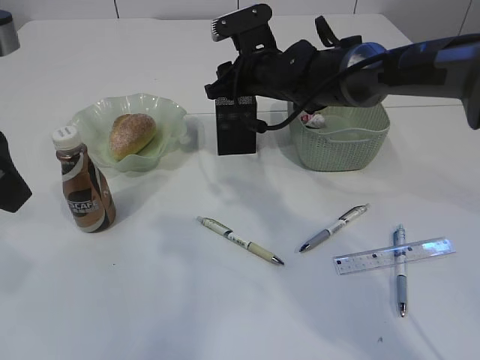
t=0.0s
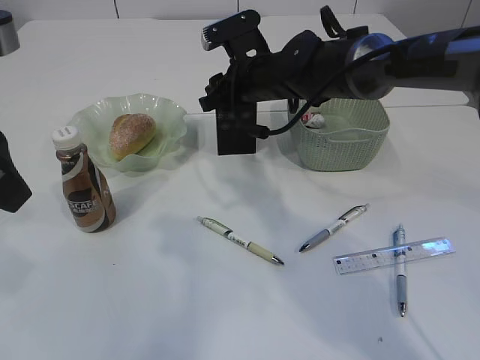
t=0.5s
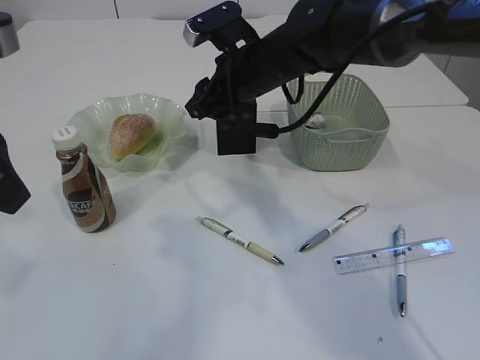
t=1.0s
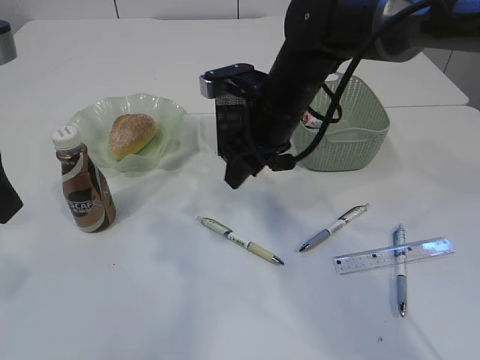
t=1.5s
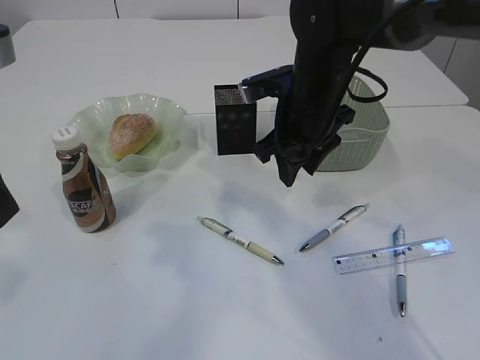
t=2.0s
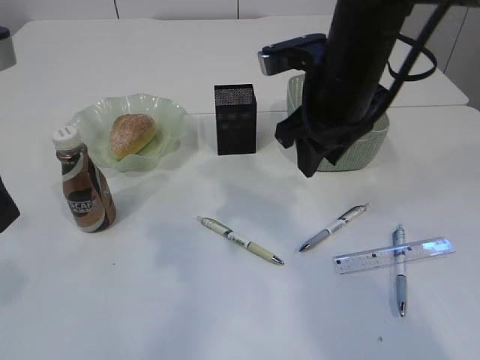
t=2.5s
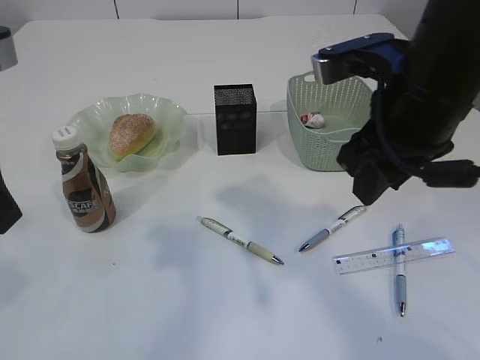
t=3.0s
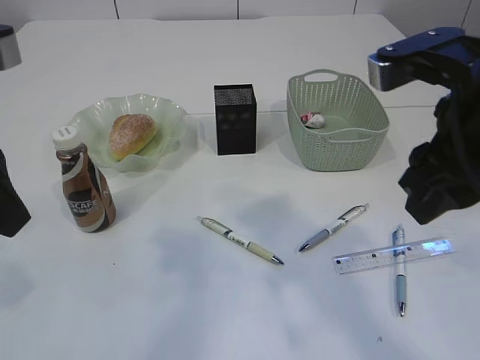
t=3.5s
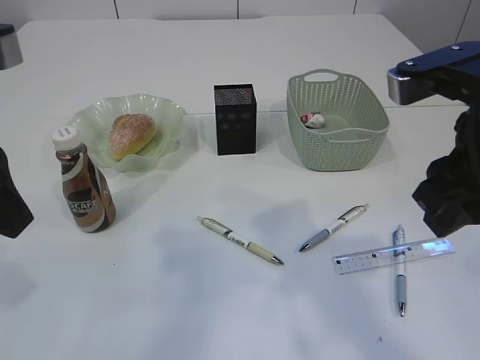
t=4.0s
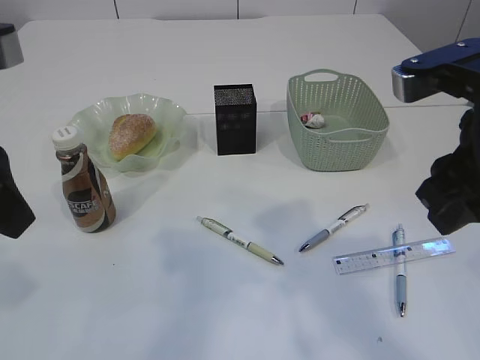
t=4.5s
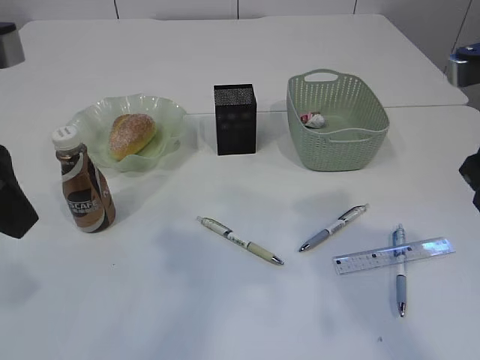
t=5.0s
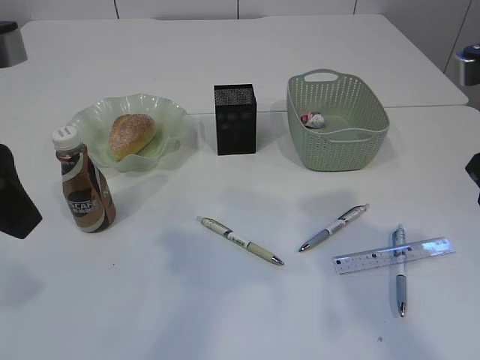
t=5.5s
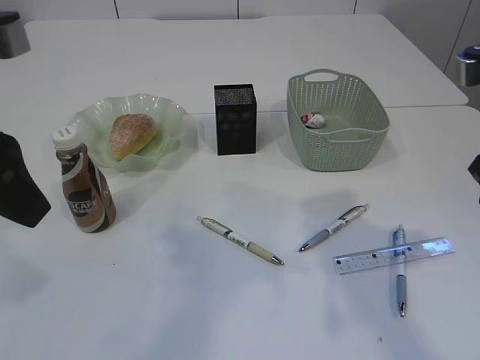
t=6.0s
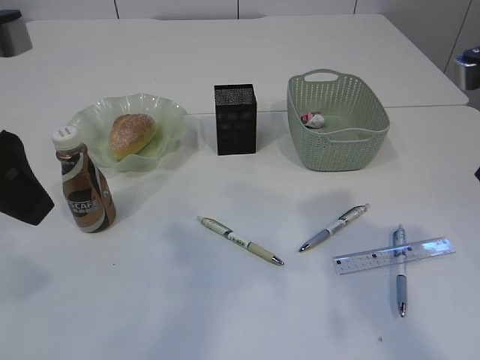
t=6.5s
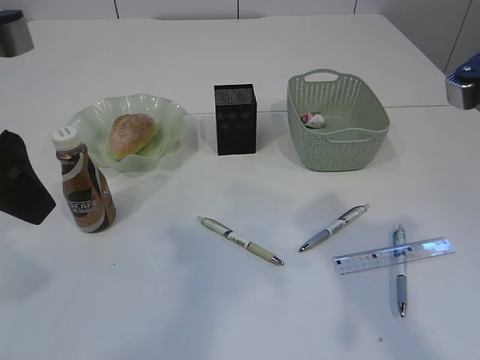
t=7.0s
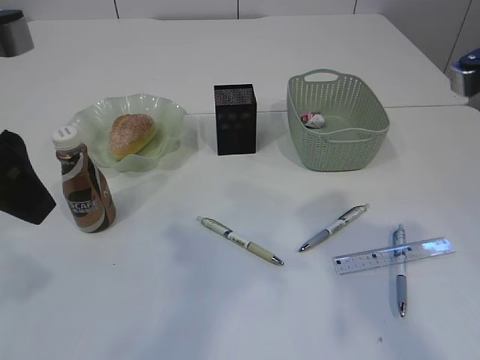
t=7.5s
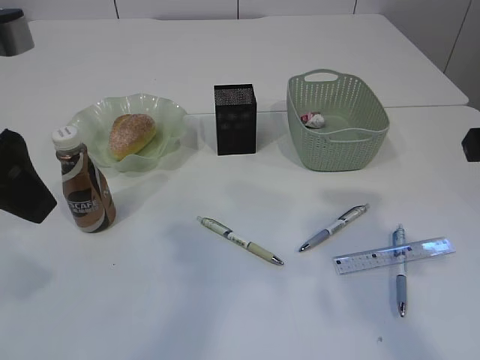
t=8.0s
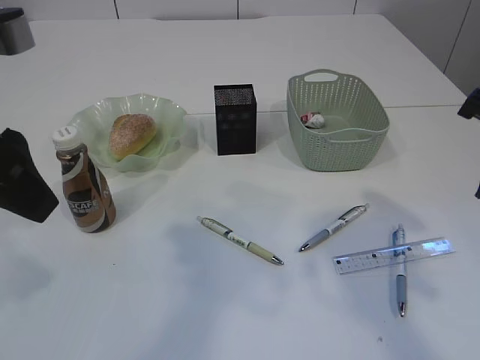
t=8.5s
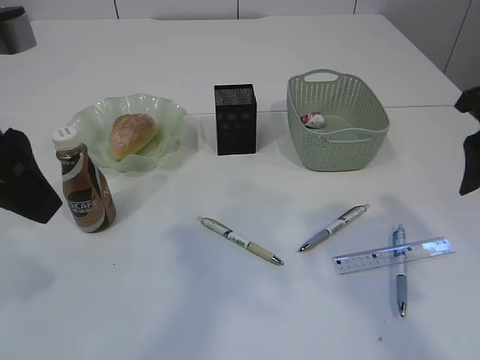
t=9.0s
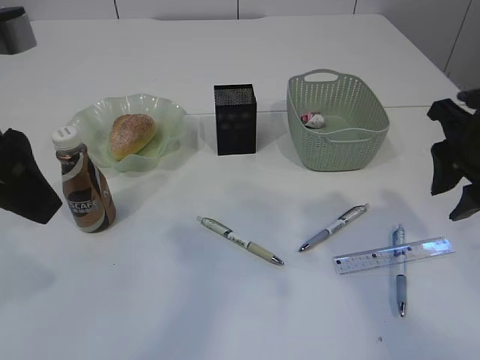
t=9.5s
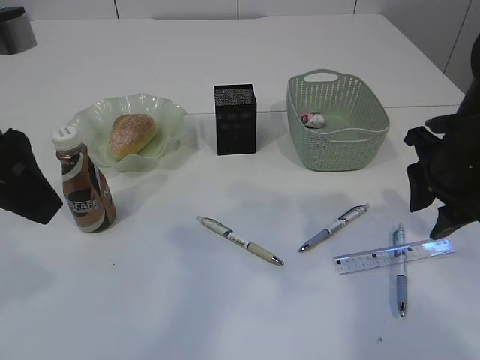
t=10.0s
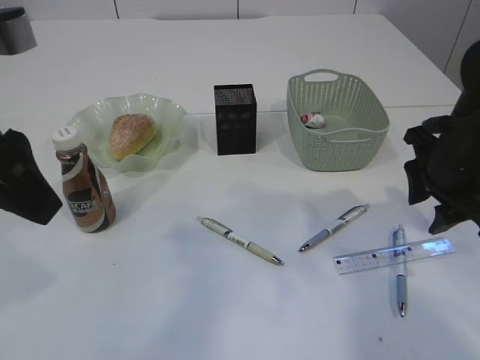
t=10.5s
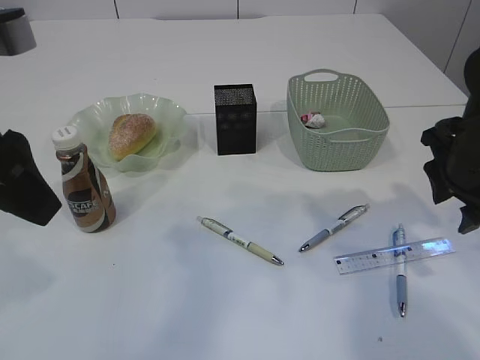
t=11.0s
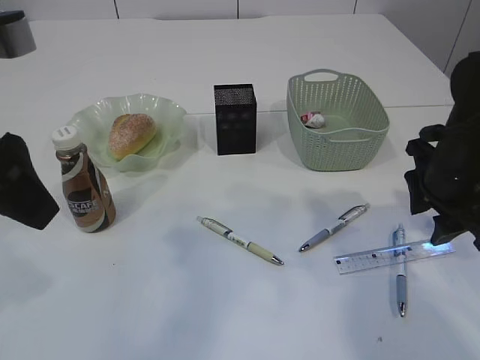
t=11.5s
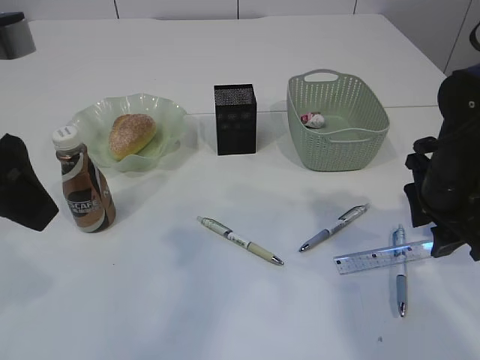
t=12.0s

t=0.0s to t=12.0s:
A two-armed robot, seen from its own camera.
t=0.0s to t=2.0s: The right gripper goes some 10 cm backward.
t=2.0s to t=4.0s: The right gripper shifts roughly 20 cm backward, upward and to the right.
t=4.0s to t=6.0s: The right gripper goes roughly 5 cm to the right.
t=8.0s to t=10.0s: The right gripper moves downward and forward, roughly 10 cm.
t=10.0s to t=12.0s: The right gripper moves downward, approximately 5 cm.

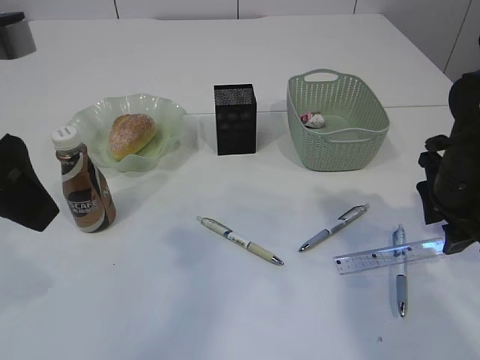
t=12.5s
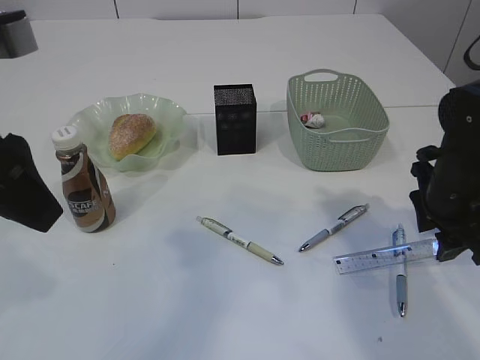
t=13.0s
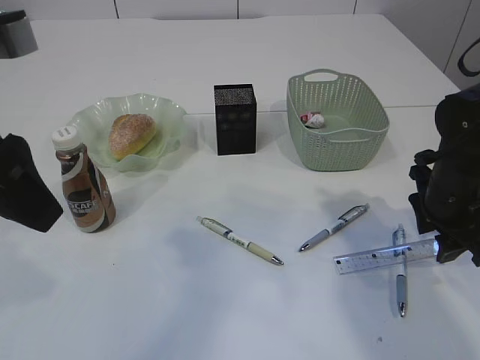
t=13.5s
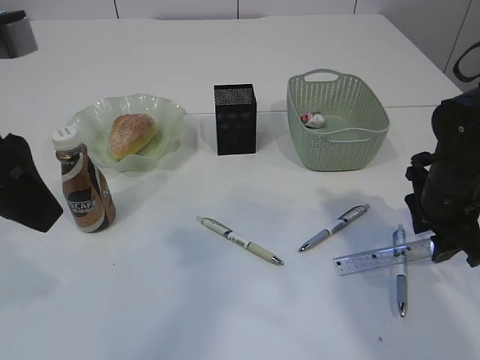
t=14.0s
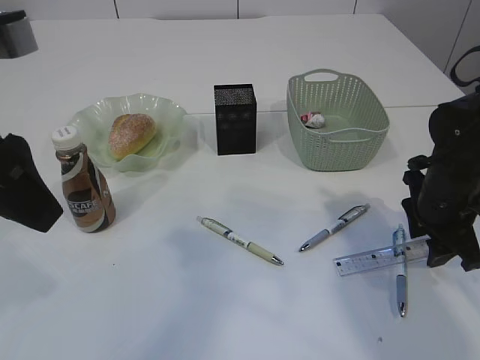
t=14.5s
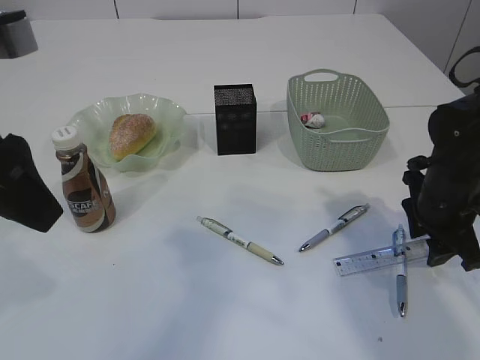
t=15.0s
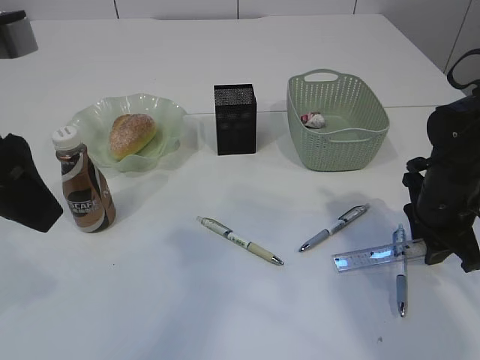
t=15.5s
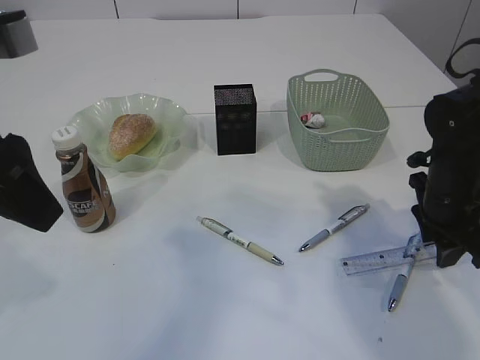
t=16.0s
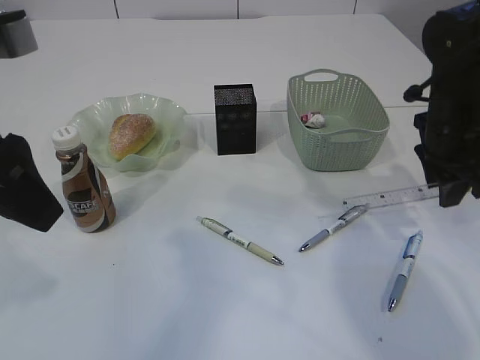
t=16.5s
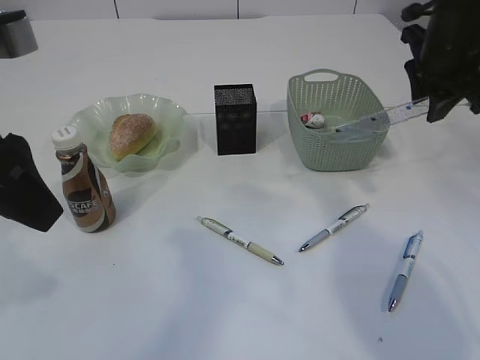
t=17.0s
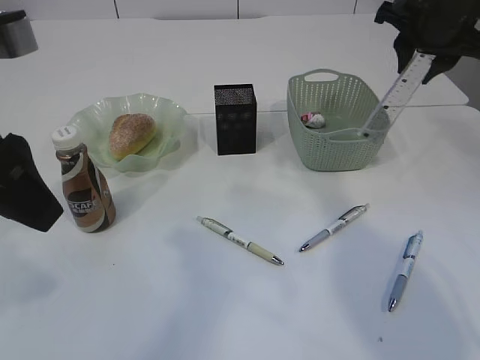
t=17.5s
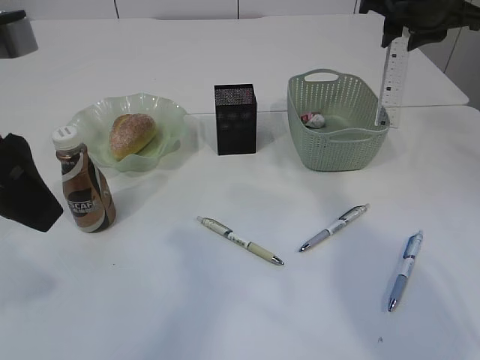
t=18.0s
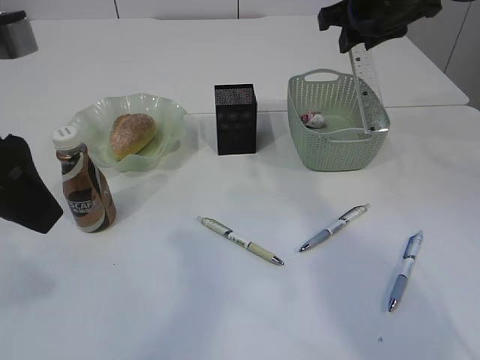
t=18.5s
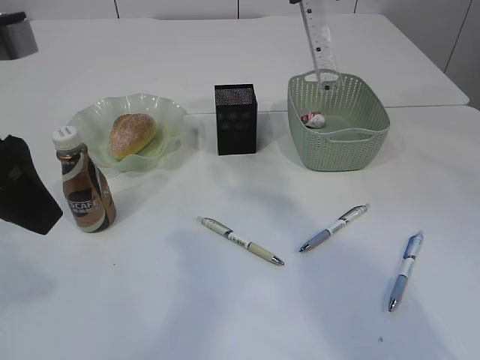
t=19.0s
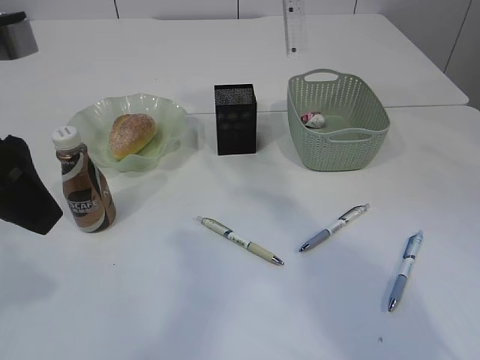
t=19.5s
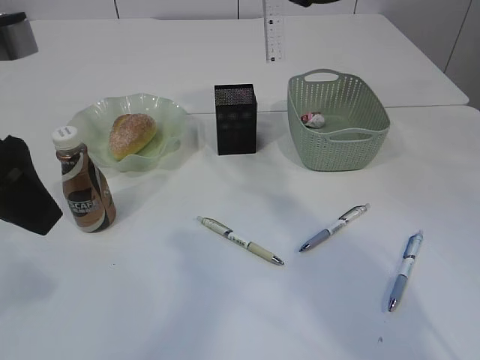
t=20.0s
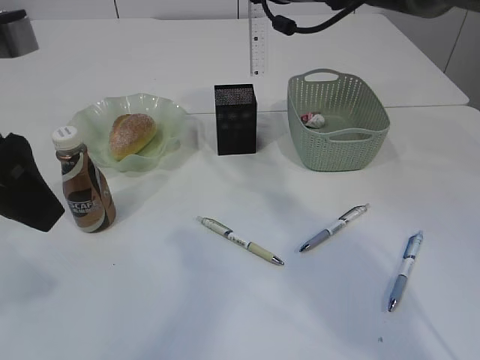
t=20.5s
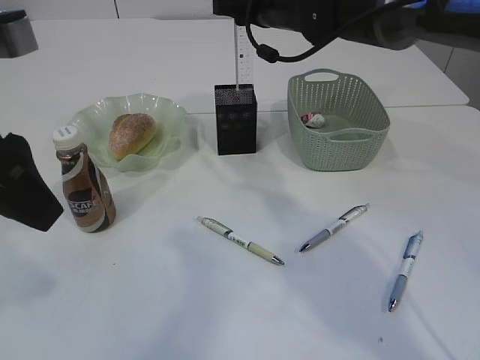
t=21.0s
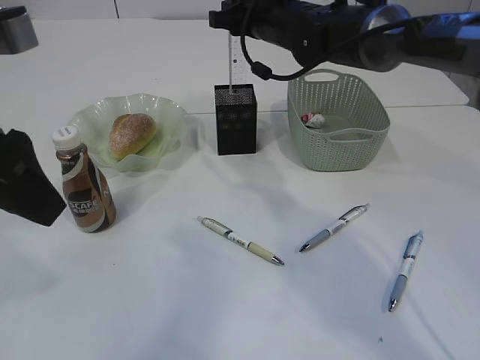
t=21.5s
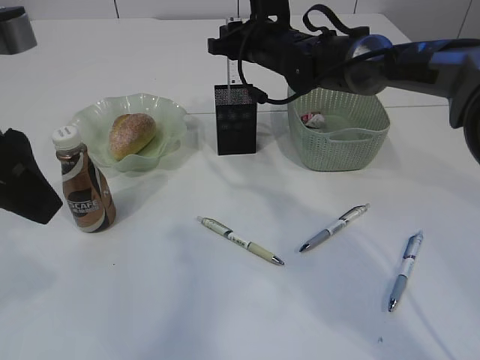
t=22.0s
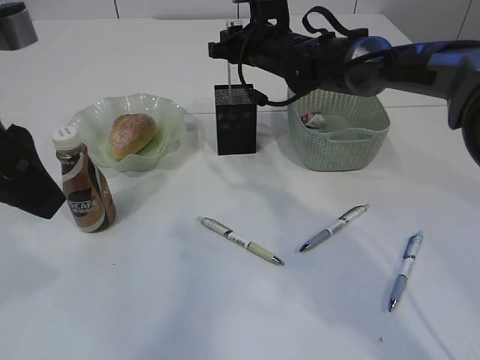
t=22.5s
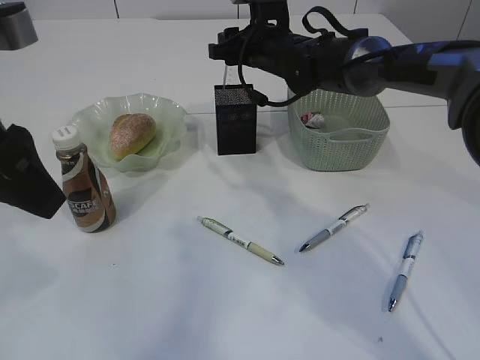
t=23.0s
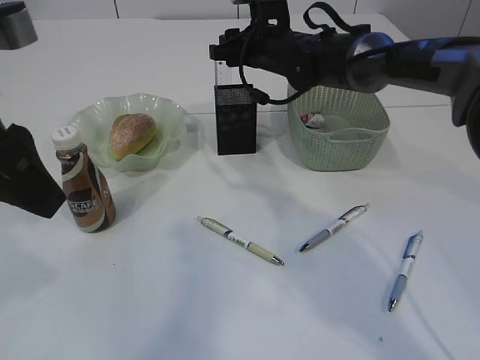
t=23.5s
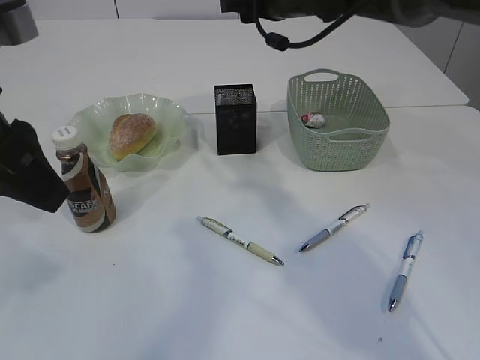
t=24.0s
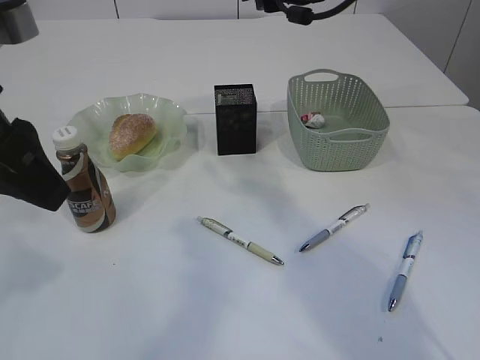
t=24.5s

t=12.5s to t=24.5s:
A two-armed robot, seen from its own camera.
Step, t=12.5s to t=16.5s: pick up the ruler.
Step, t=17.0s to t=23.5s: Place the ruler into the pen holder.
t=12.5s to t=14.5s: There are only small adjustments of the grippers.
t=14.5s to t=16.5s: The right gripper travels upward by roughly 5 cm.
t=16.5s to t=18.5s: The right gripper travels upward, forward and to the left by about 15 cm.
t=18.5s to t=20.5s: The right gripper goes some 10 cm to the left and forward.
t=20.5s to t=22.5s: The right gripper heads downward, covering some 10 cm.
t=22.5s to t=24.5s: The right gripper moves upward and backward, approximately 15 cm.

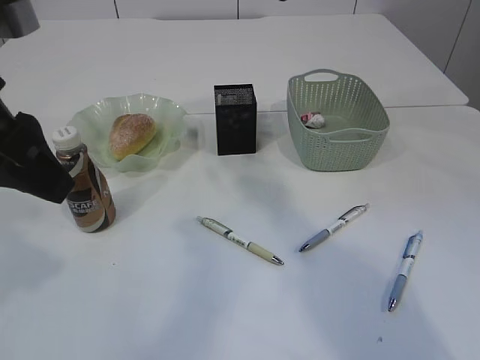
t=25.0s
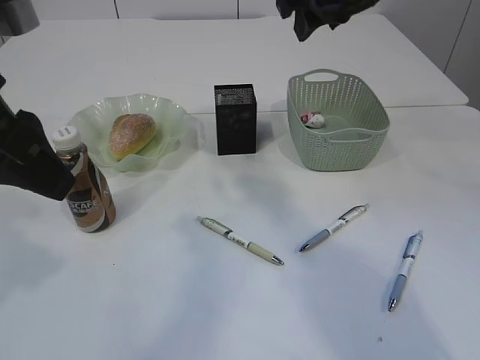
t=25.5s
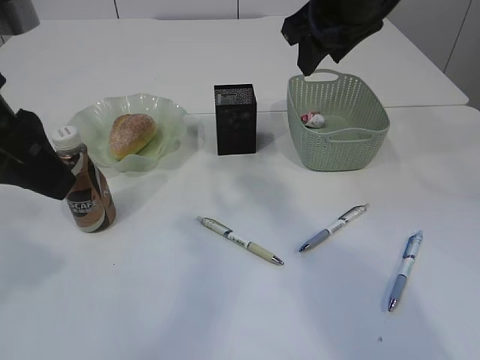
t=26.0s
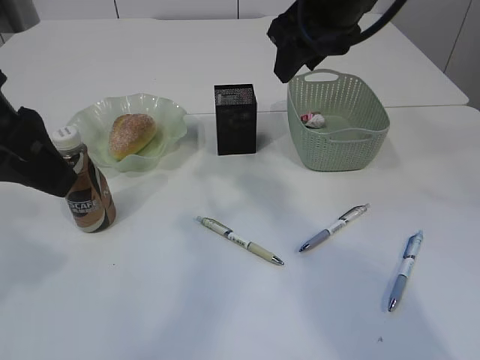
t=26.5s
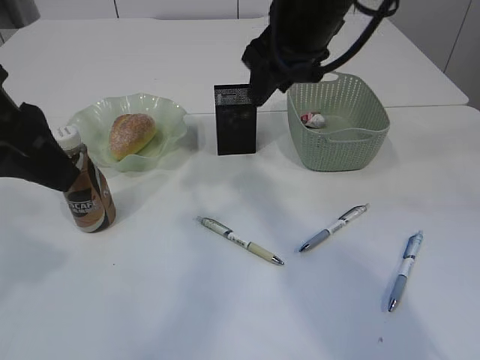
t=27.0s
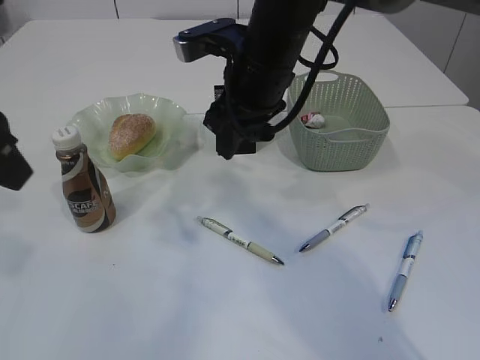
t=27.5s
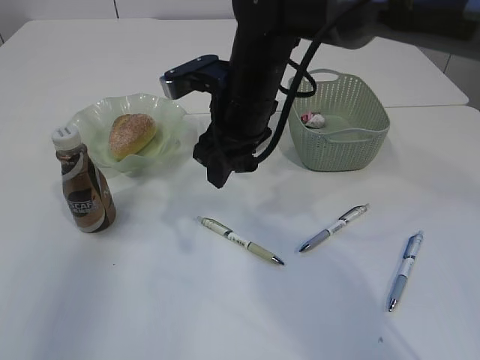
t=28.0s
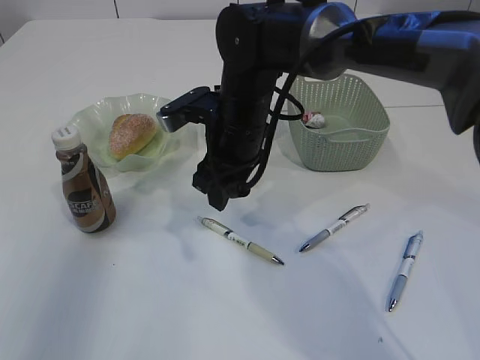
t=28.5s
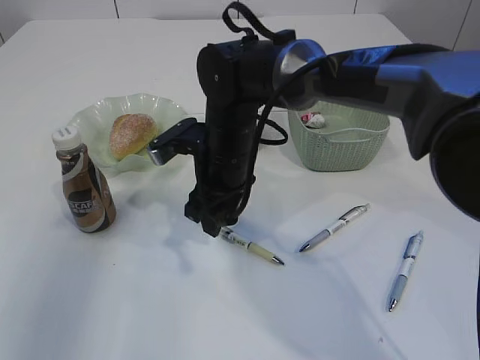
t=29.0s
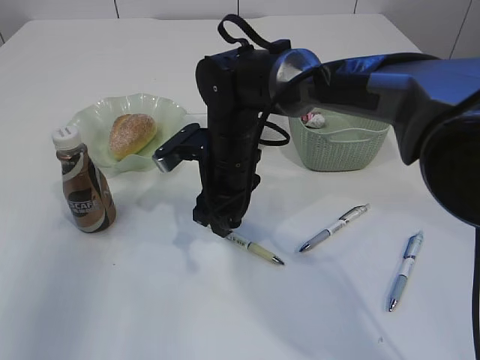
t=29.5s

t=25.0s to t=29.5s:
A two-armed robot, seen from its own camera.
t=25.0s to t=27.0s: The right gripper moves roughly 5 cm.
t=27.0s to t=29.5s: The left gripper shifts some 15 cm to the left, while the right gripper moves downward and to the left, approximately 20 cm.
